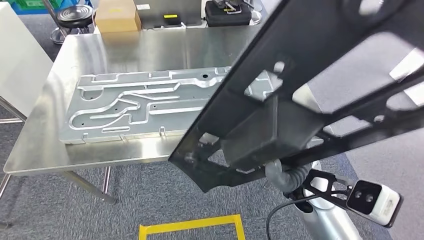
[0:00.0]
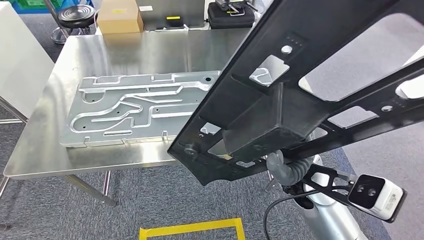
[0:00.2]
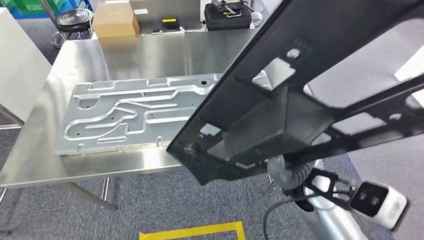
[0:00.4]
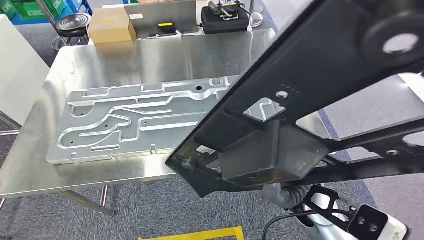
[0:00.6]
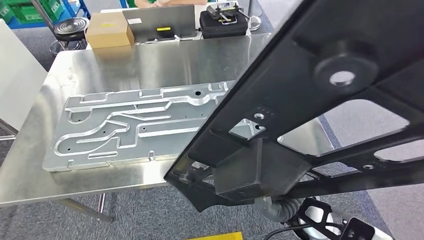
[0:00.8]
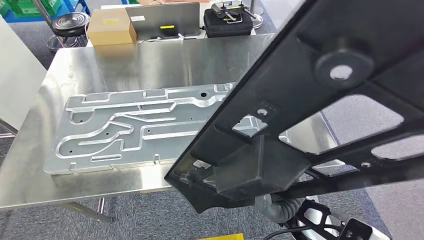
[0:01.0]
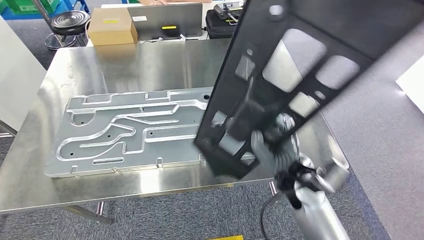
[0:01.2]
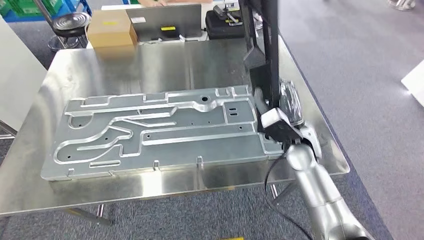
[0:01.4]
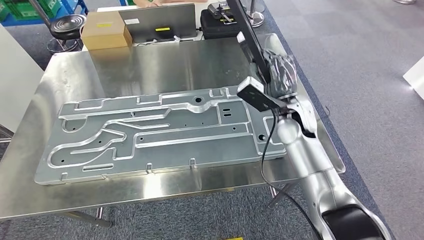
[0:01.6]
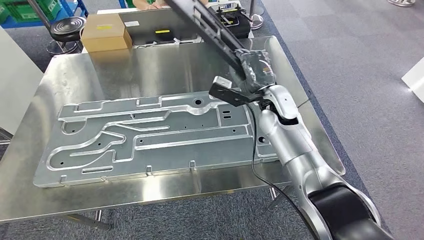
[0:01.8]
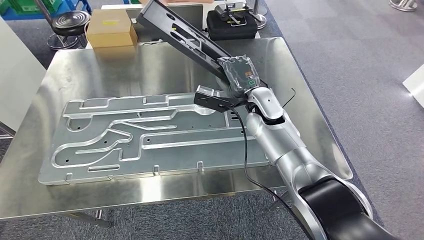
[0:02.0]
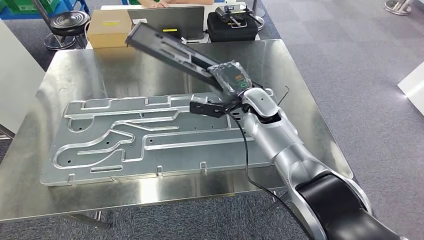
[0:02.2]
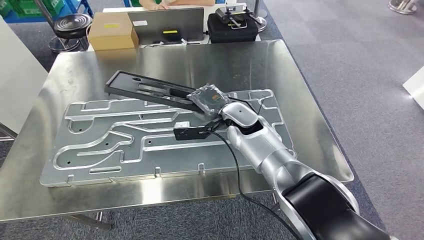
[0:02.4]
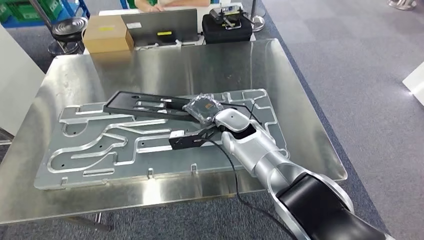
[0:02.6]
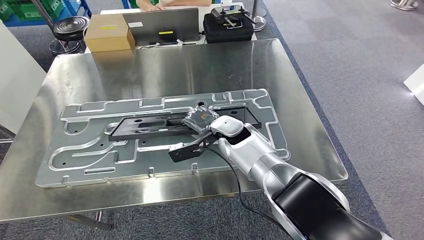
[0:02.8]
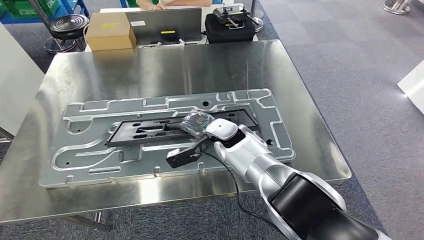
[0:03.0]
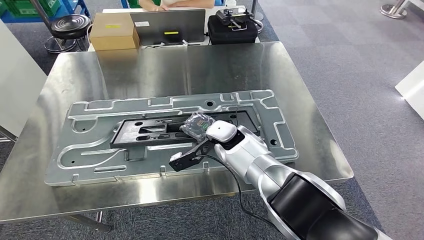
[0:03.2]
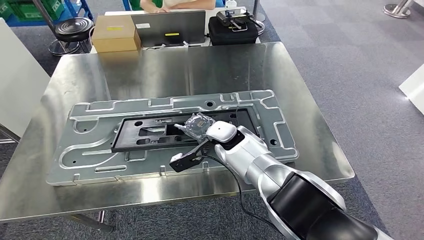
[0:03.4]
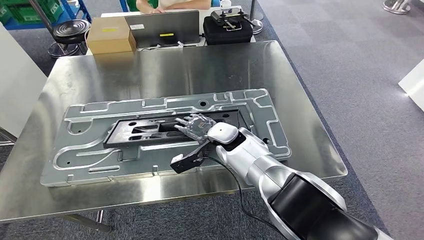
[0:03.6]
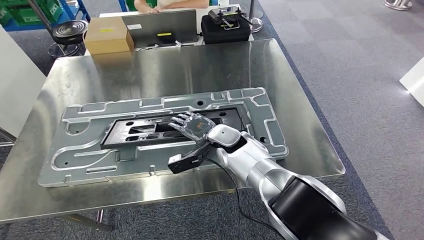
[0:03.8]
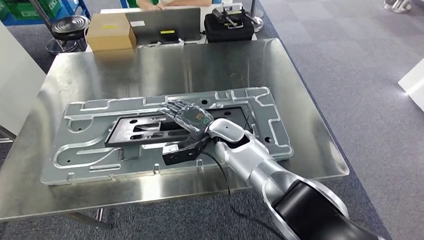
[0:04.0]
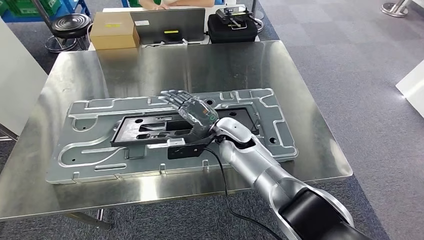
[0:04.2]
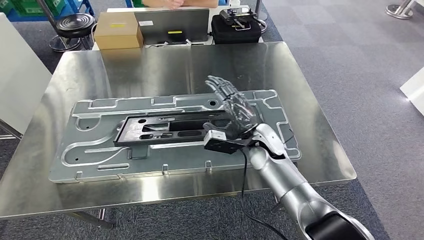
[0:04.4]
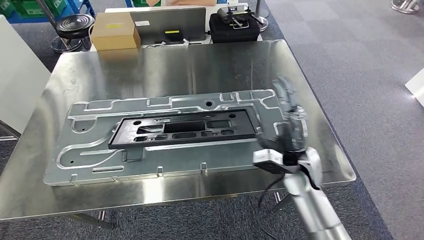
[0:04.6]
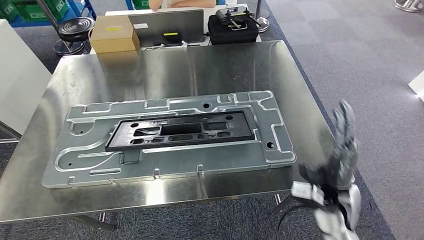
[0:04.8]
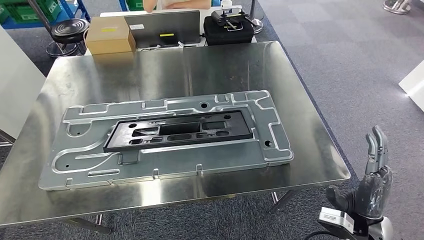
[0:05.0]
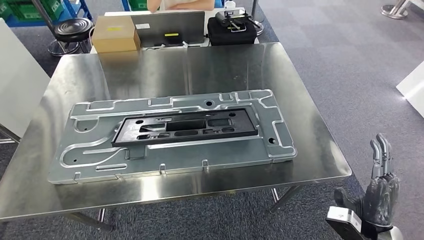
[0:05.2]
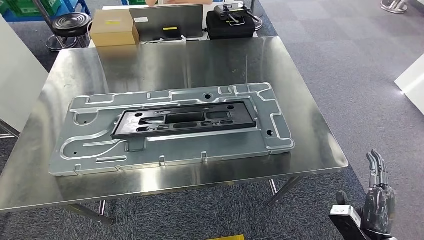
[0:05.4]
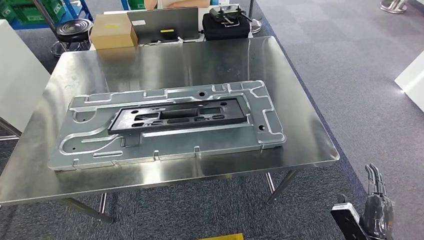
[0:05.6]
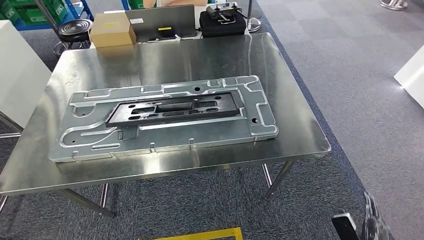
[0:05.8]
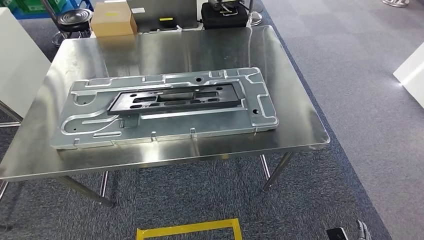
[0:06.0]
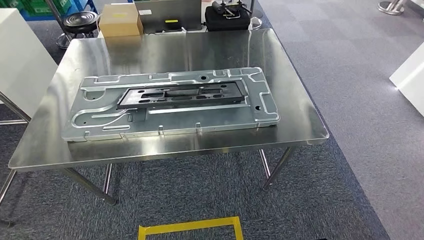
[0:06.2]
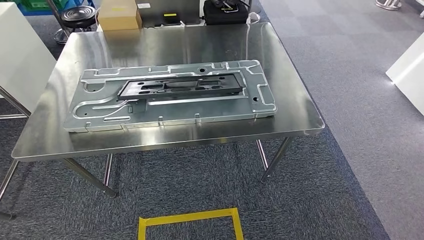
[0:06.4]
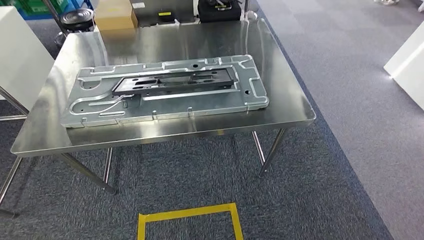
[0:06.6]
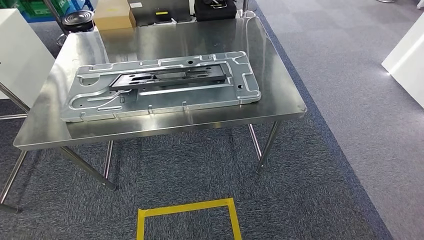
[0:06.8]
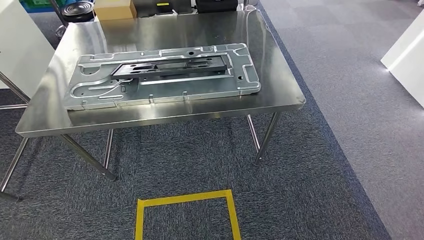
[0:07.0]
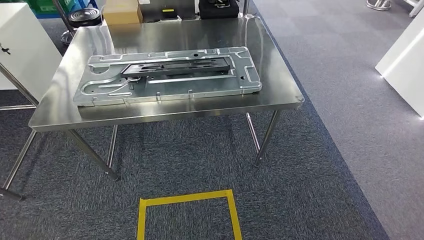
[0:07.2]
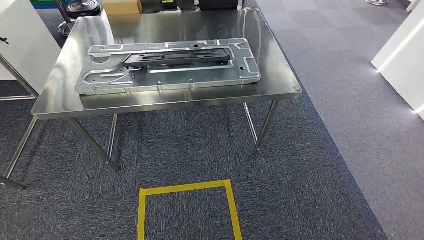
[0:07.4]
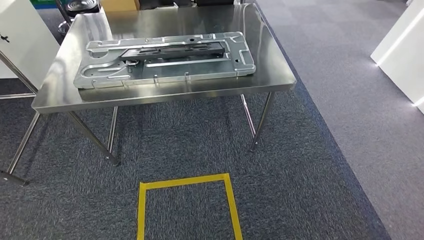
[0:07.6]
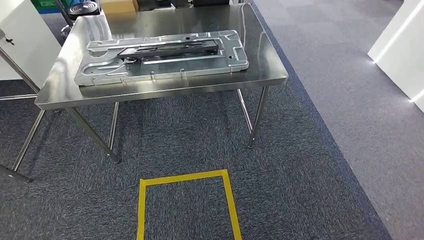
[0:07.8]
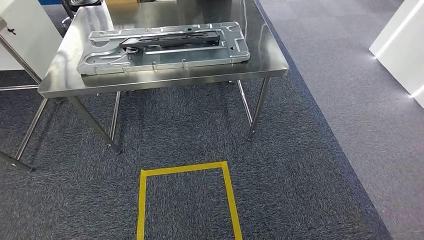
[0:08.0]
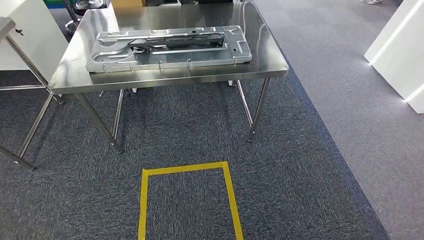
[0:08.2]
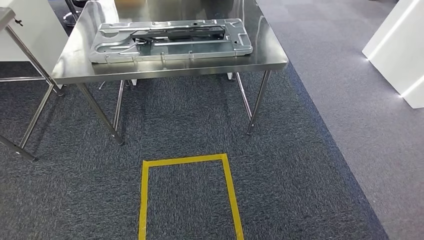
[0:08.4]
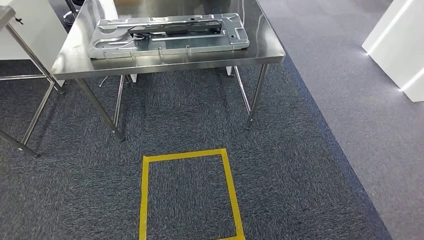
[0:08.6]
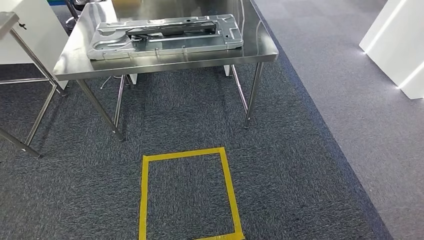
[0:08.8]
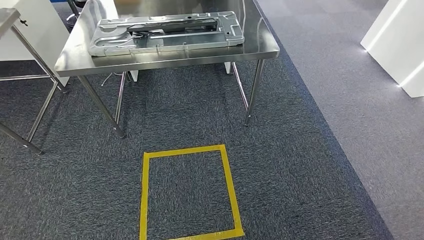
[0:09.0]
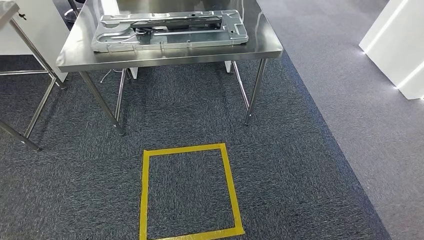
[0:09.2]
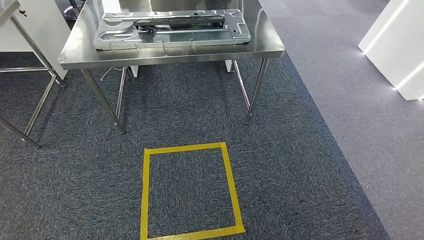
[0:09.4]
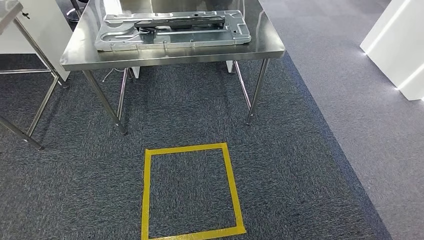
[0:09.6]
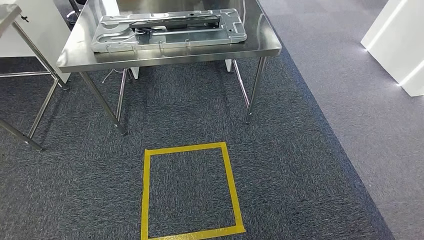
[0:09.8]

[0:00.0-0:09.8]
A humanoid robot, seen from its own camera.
Step, 0:02.0 to 0:05.4: Insert the large material into the corresponding slot on the workbench.
Step, 0:06.6 to 0:09.8: Return to the initial position at the shelf.
0:08.4 to 0:09.8: Both hands stay about where they are.
